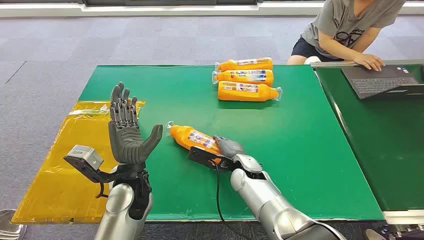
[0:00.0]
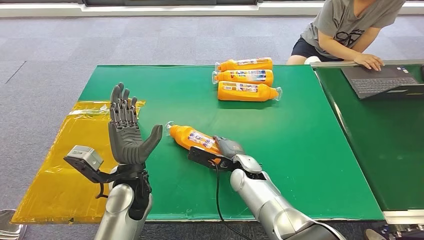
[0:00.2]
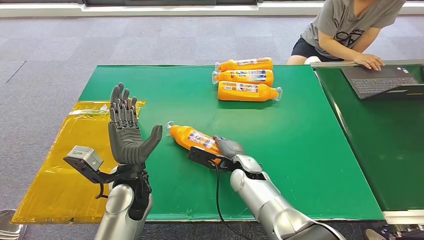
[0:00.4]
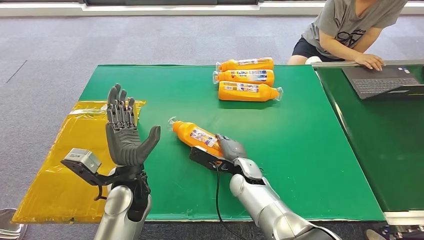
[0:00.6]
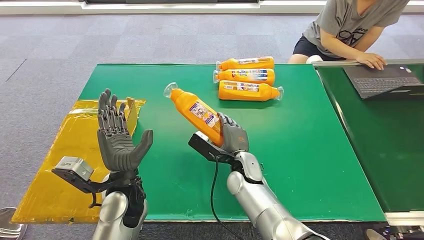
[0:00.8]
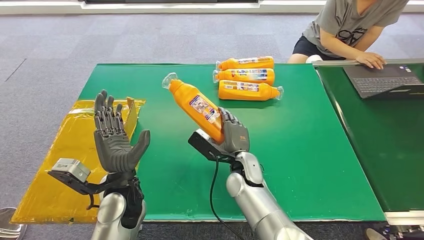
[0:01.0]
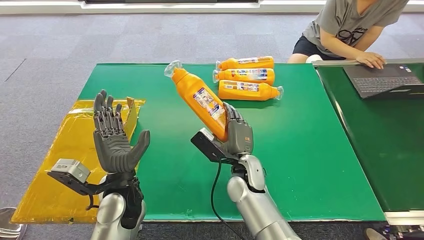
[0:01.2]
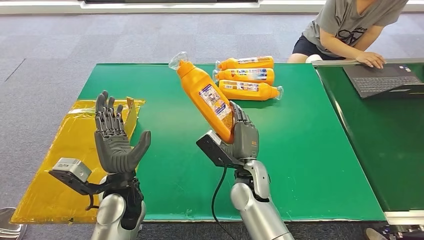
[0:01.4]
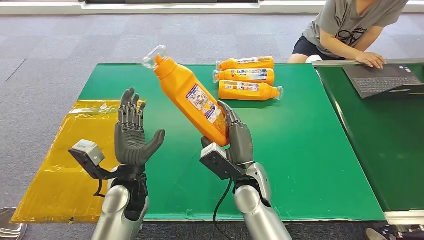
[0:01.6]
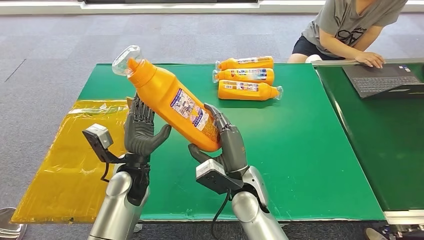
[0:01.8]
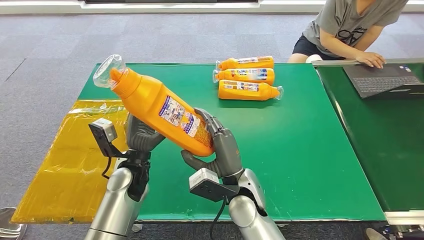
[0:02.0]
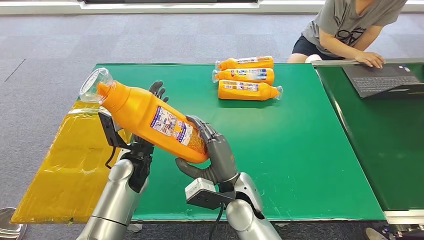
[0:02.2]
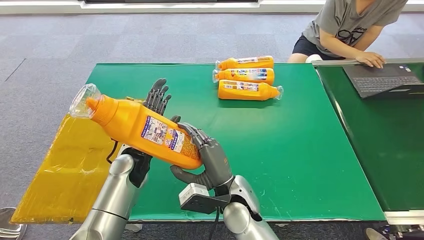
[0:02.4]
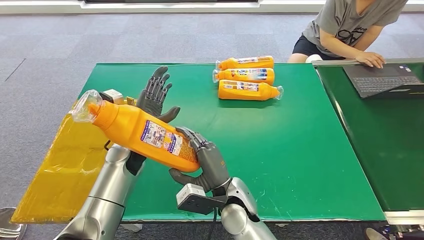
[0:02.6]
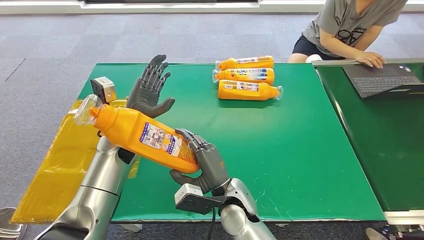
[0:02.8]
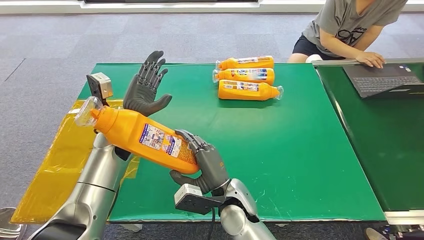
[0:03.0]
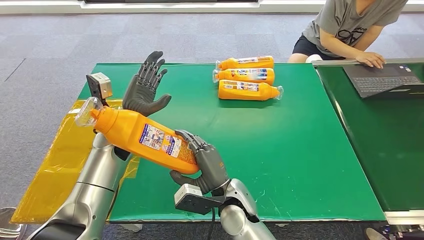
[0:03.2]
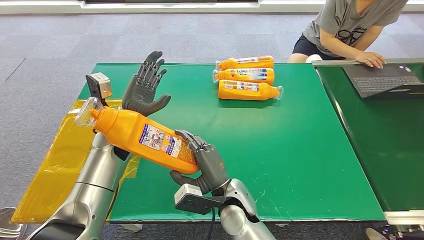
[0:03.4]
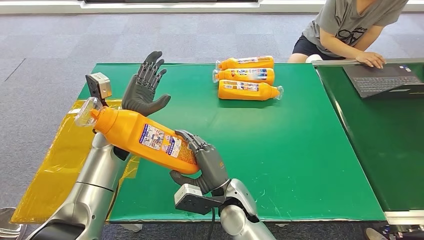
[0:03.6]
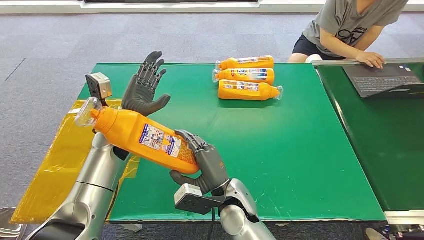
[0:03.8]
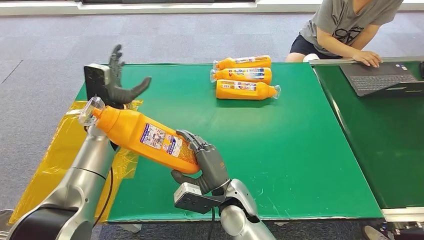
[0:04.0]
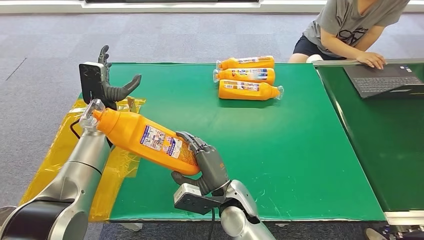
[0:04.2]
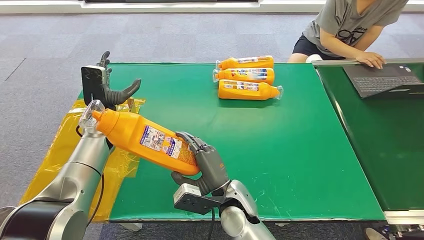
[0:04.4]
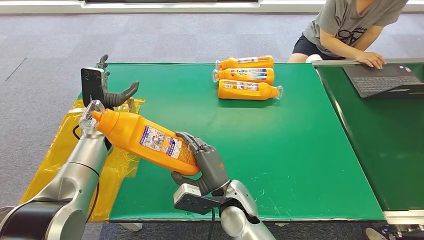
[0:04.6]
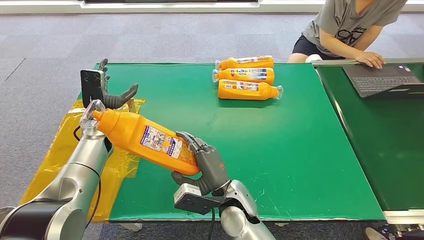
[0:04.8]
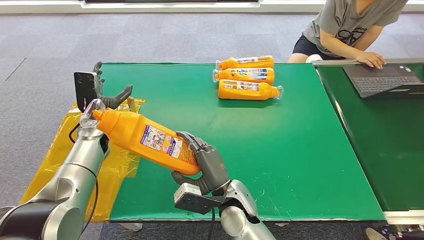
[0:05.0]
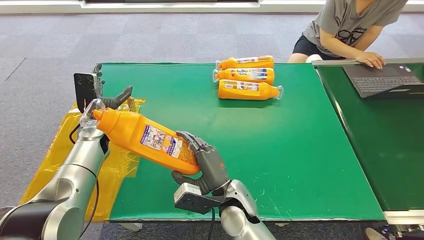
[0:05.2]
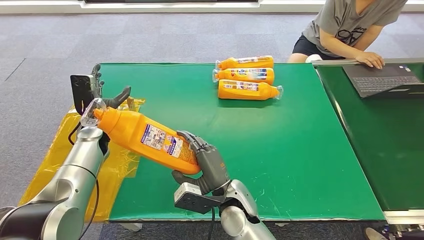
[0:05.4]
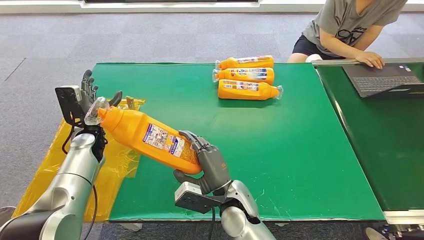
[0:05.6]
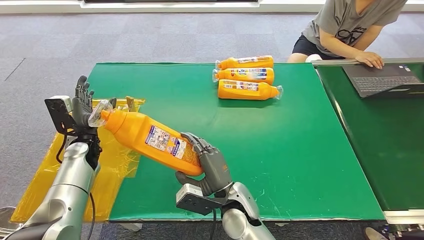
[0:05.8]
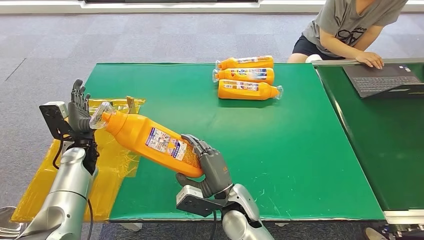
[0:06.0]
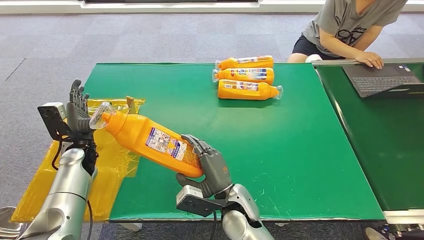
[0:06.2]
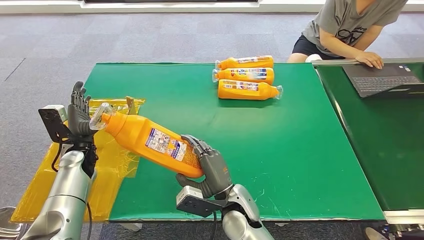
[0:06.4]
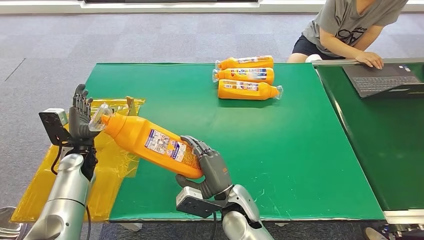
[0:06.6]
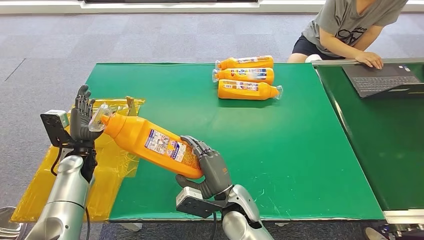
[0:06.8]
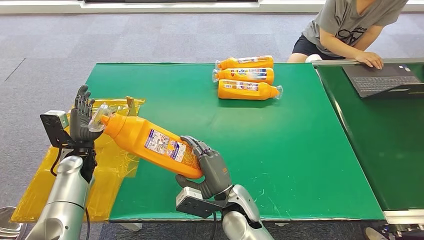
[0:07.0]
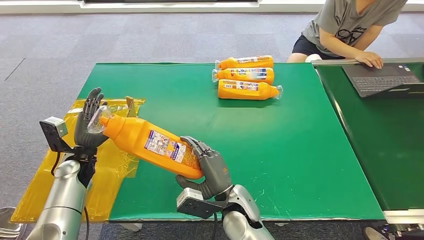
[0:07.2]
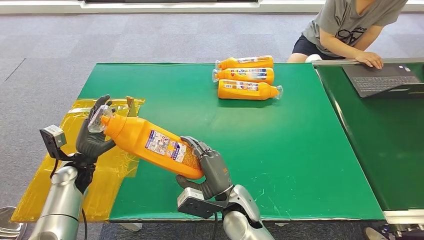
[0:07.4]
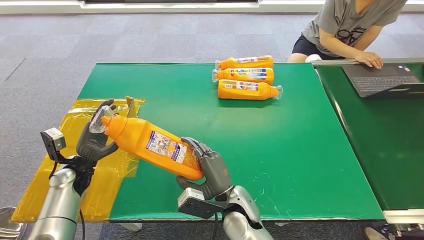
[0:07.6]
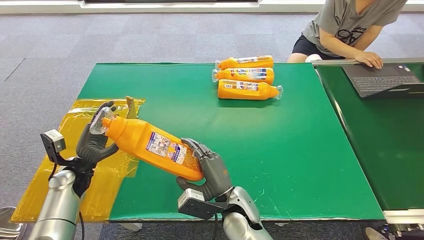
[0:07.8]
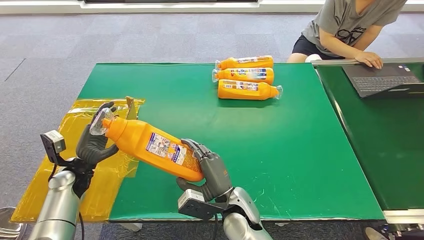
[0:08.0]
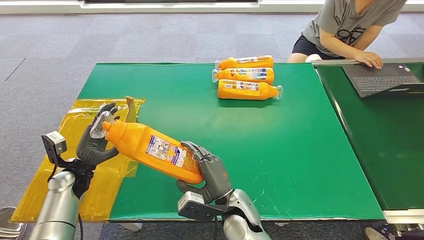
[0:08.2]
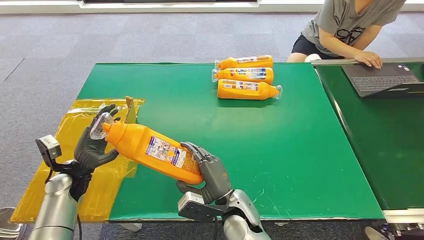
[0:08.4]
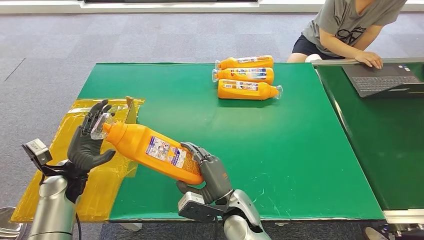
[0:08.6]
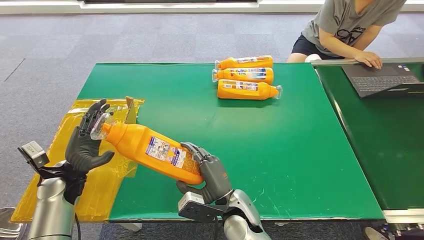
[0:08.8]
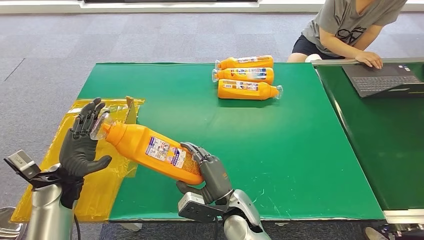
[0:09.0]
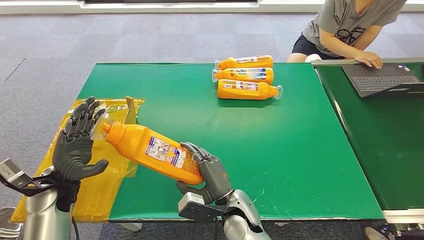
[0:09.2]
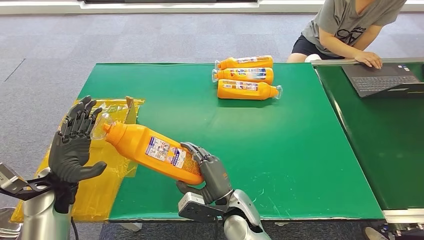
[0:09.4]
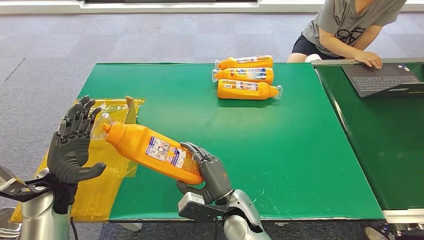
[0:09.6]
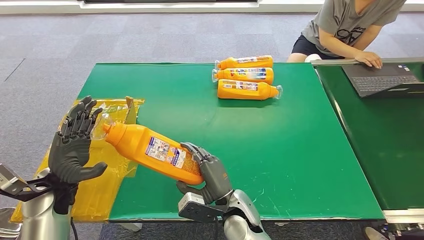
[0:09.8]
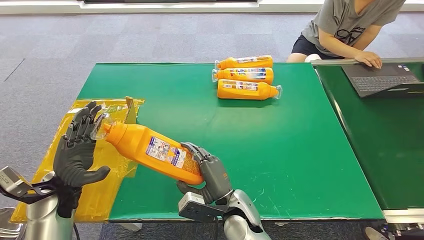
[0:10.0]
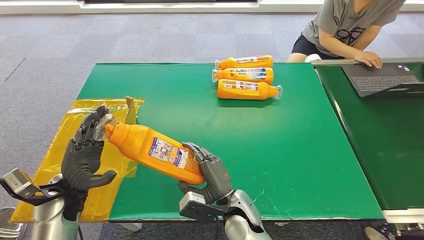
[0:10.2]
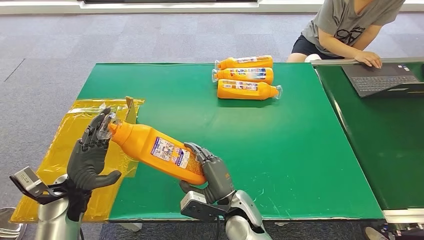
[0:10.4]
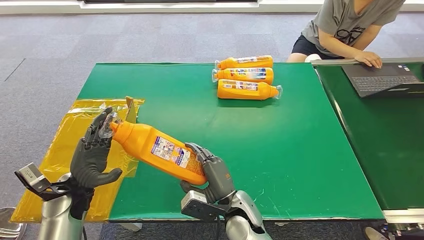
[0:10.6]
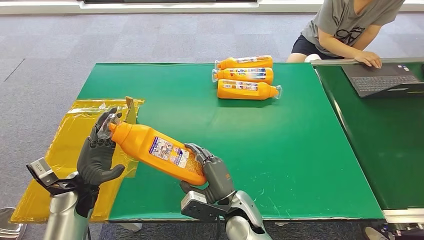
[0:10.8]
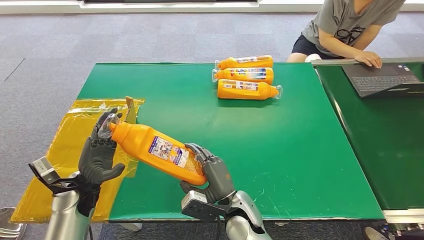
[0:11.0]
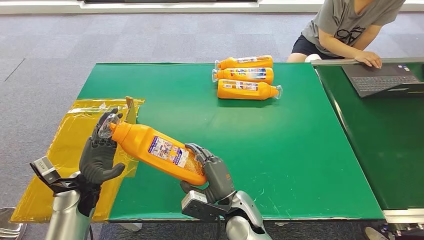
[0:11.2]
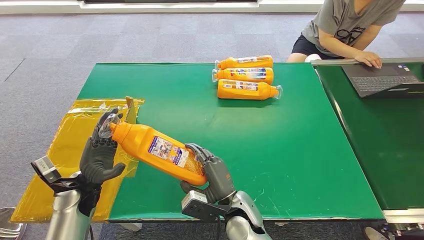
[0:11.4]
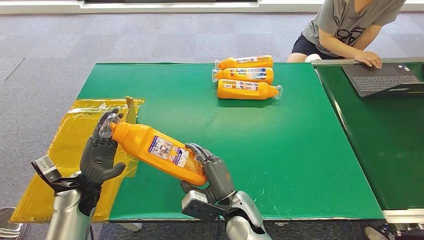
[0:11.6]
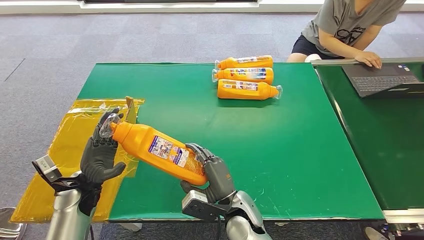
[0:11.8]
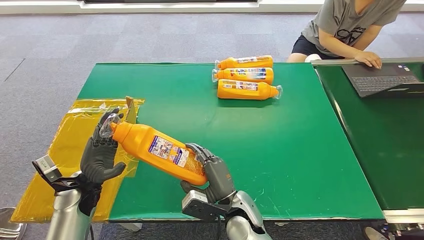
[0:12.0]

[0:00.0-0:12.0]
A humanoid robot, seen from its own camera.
Step, 0:00.0 to 0:01.4: Pick up the bottle from the table.
0:03.0 to 0:04.4: The left hand is displaced to the left by approximately 5 cm.
0:04.4 to 0:06.0: The left hand travels downward, to the left and backward by approximately 10 cm.
0:06.0 to 0:07.6: The left hand travels backward by approximately 5 cm.
0:07.6 to 0:09.0: The left hand moves approximately 5 cm.
0:09.0 to 0:12.0: The hands stay close to where they were, moving slightly.

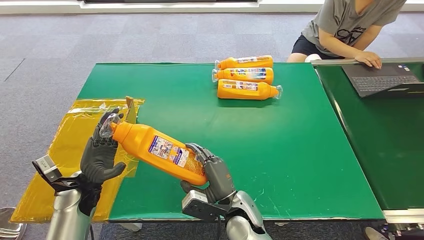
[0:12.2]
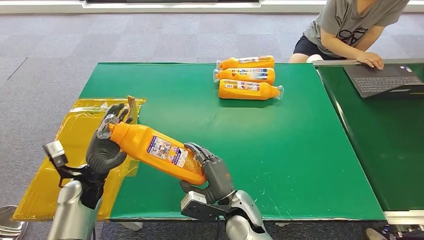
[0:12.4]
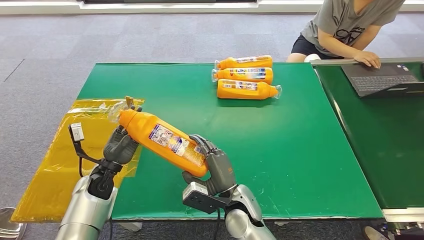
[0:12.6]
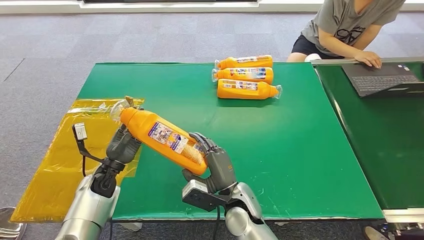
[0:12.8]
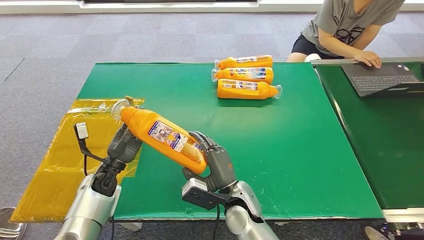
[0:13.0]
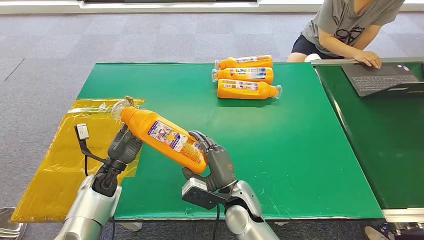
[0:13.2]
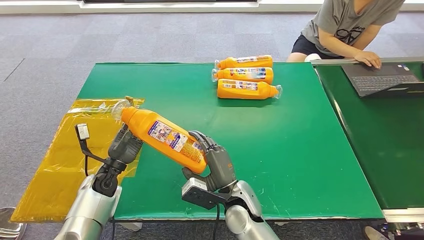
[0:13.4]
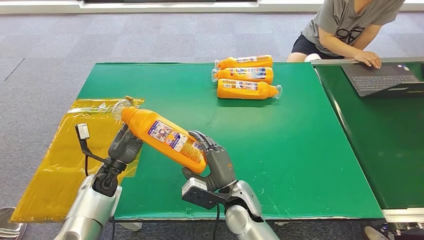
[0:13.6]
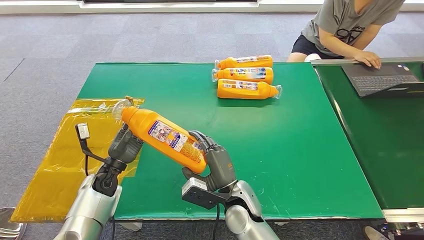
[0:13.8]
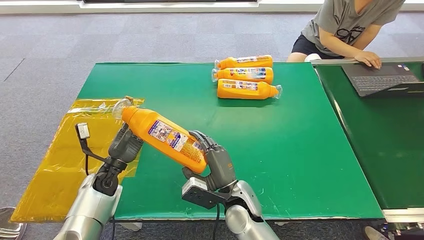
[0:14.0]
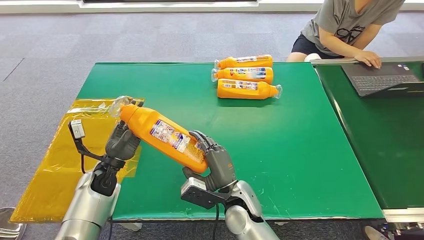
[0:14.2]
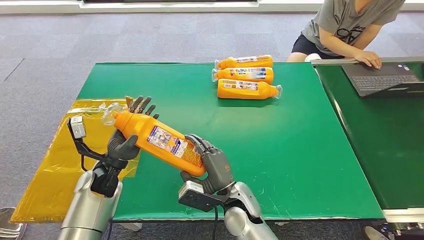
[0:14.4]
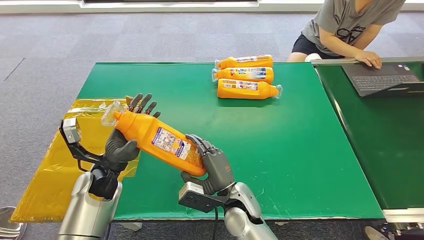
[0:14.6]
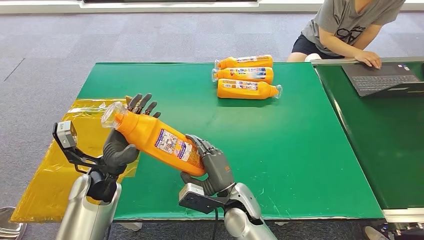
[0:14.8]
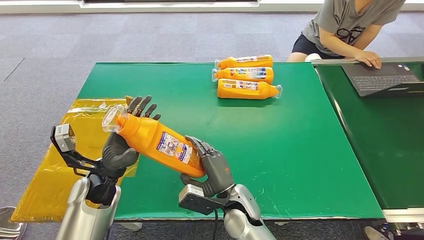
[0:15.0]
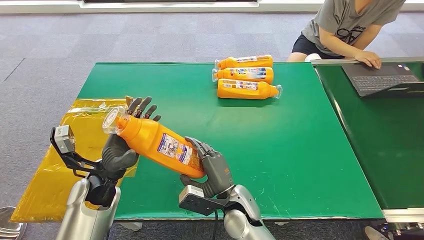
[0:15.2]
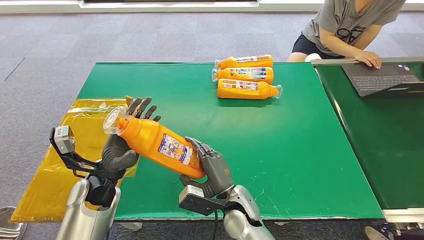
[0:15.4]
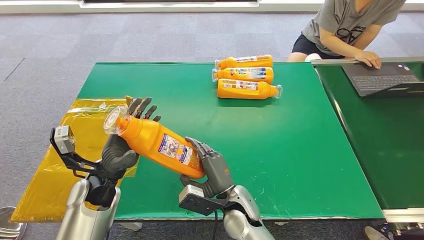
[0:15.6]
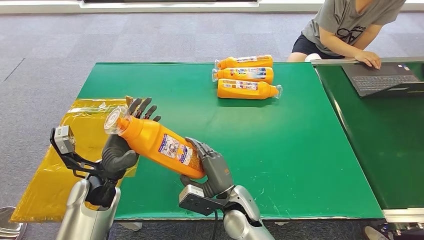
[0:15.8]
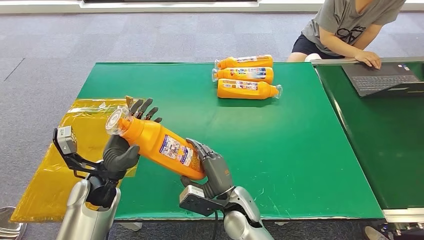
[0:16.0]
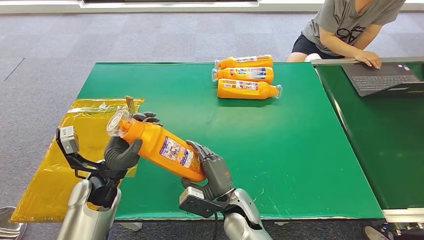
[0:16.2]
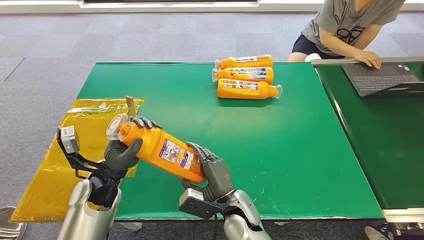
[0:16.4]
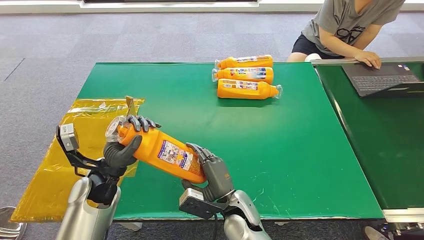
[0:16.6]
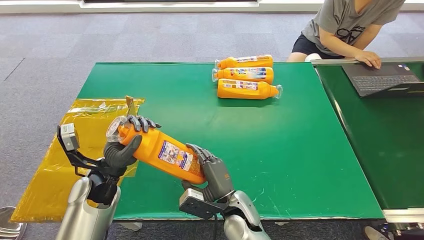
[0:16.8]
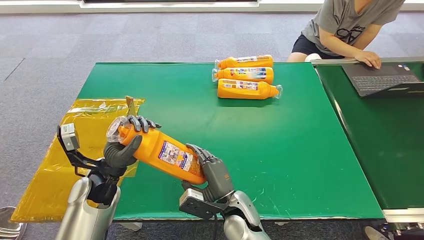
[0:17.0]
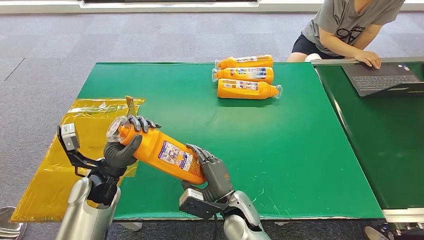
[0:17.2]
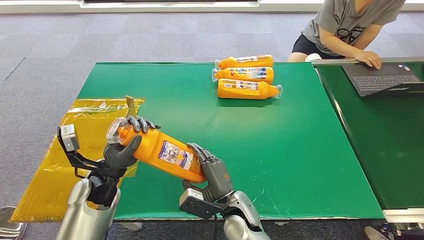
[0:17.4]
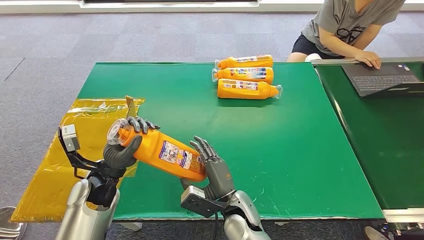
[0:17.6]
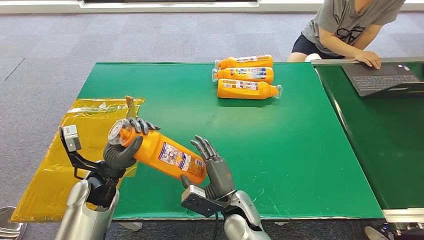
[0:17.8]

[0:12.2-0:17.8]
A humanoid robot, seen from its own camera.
Step, 0:14.8 to 0:17.8: Turn the bottle to the front side.
0:12.2 to 0:13.6: The left hand moves some 5 cm.
0:13.6 to 0:15.0: The left hand shifts some 10 cm upward.
0:15.0 to 0:17.8: The hands stay close to where they were, moving slightly.
